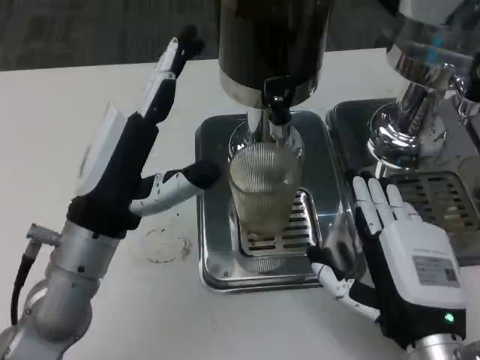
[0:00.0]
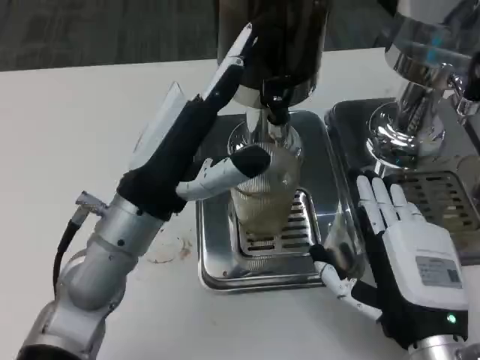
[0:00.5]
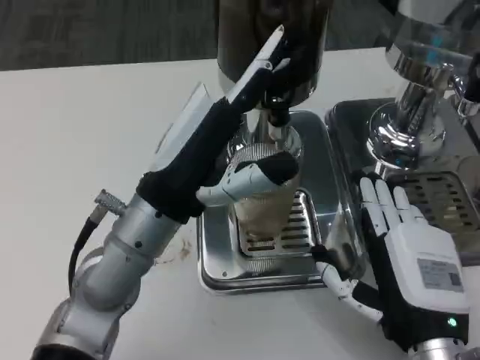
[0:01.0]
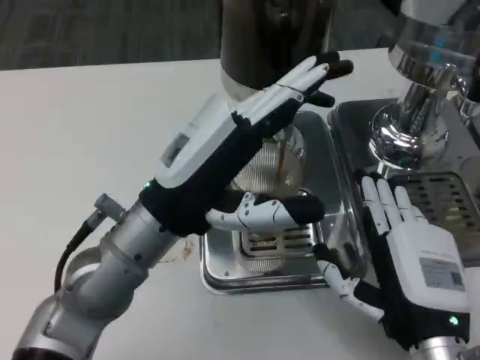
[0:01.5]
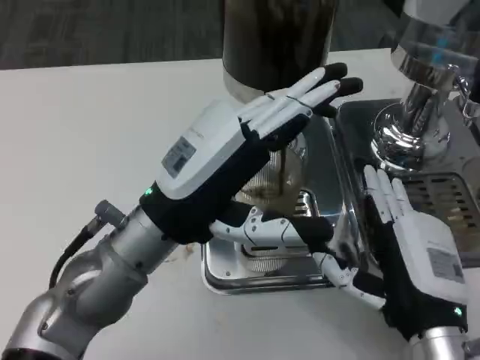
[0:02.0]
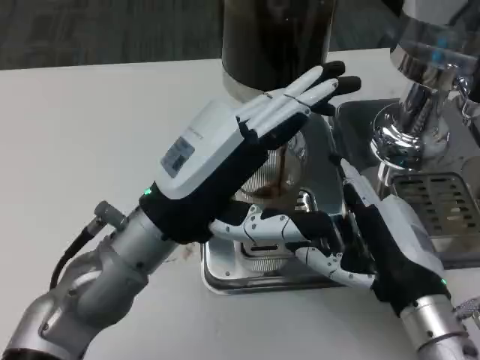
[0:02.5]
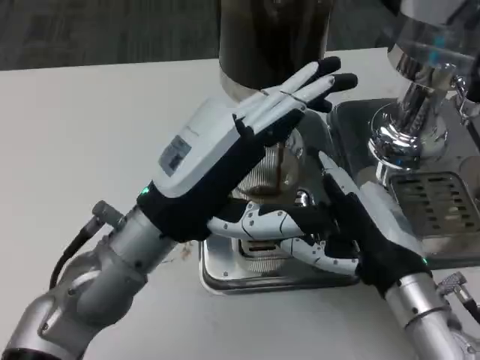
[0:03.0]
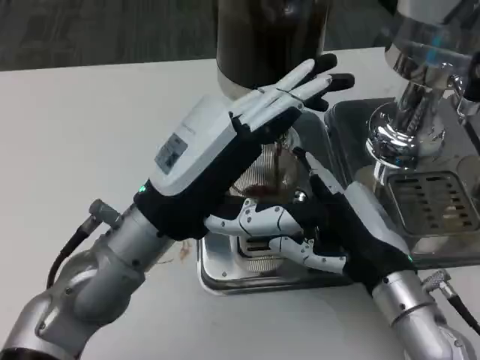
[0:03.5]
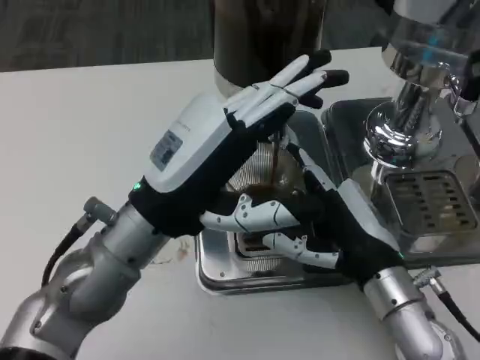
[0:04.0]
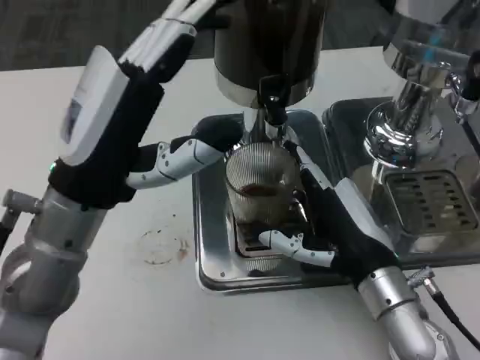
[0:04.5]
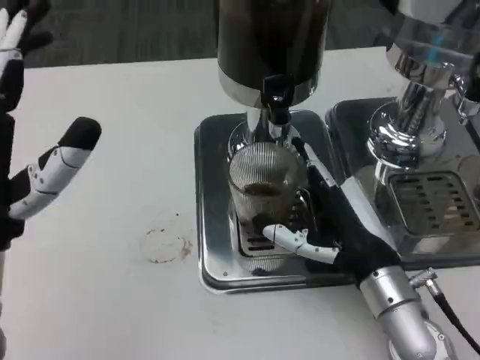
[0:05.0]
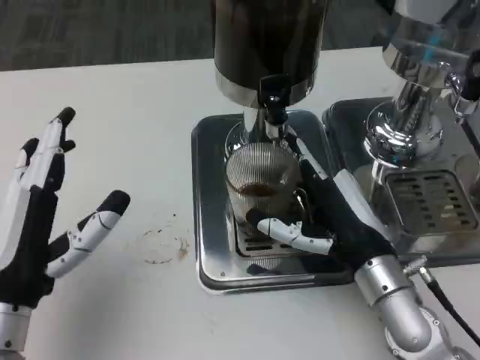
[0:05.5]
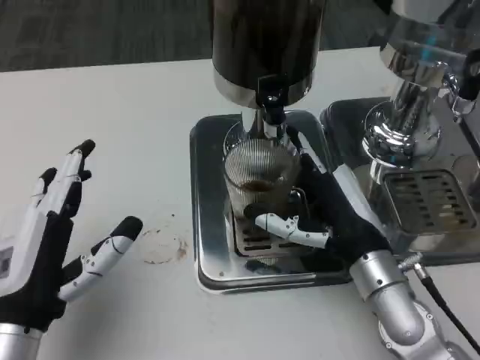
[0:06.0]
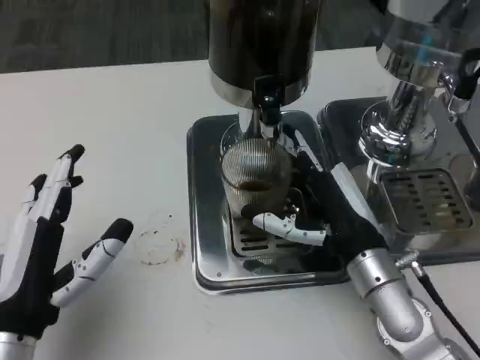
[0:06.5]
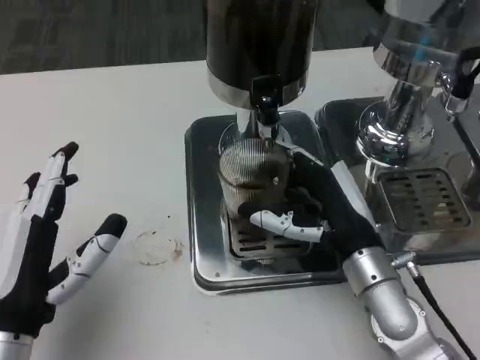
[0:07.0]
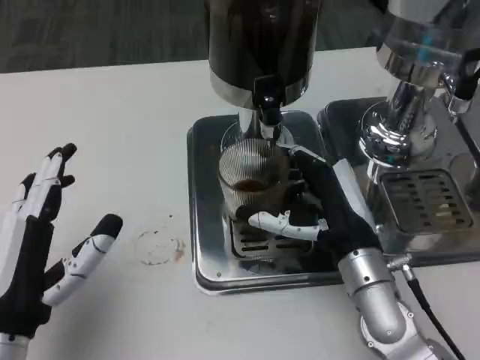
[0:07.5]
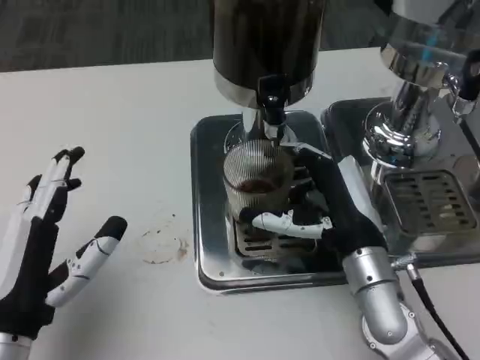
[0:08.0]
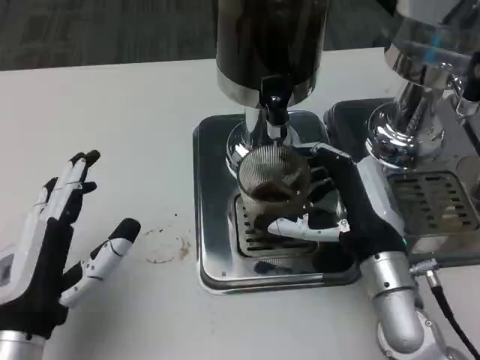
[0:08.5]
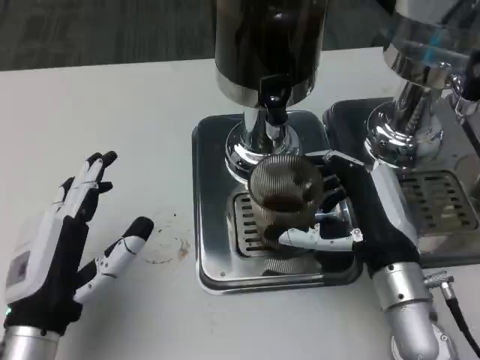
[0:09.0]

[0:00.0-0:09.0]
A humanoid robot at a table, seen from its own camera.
Task of the whole recording: Grasp the cup under the faucet to collect the drink, then remove the cup.
0:02.0 to 0:04.5: The right hand is displaced forward by some 5 cm.
0:04.5 to 0:07.0: The left hand goes some 15 cm downward, backward and to the left.

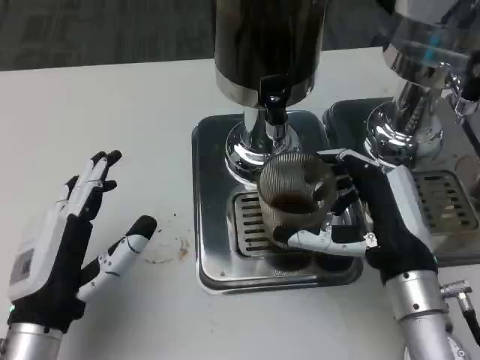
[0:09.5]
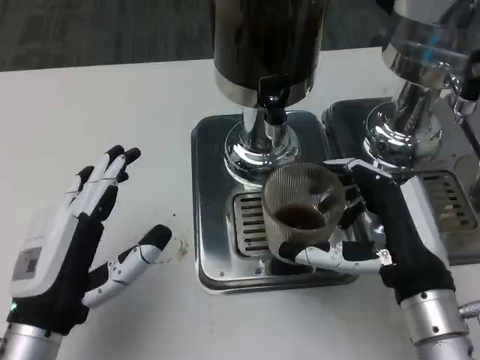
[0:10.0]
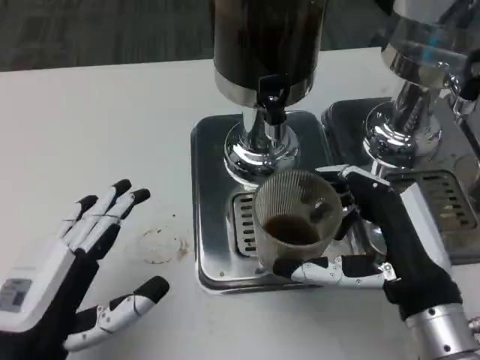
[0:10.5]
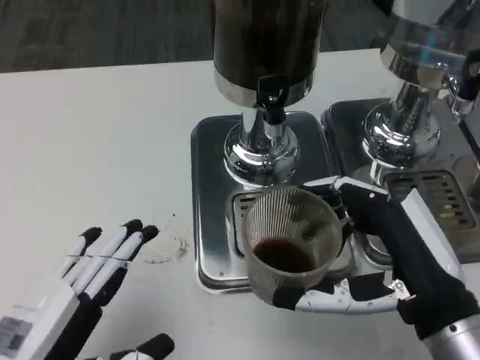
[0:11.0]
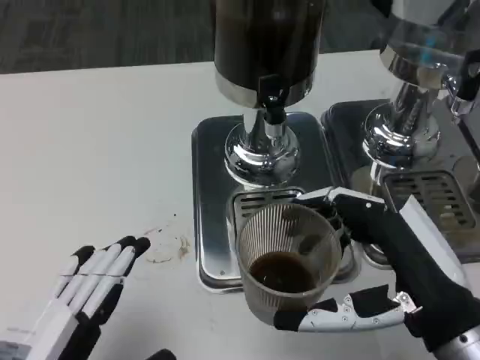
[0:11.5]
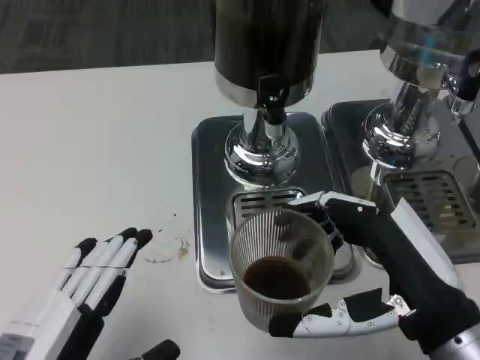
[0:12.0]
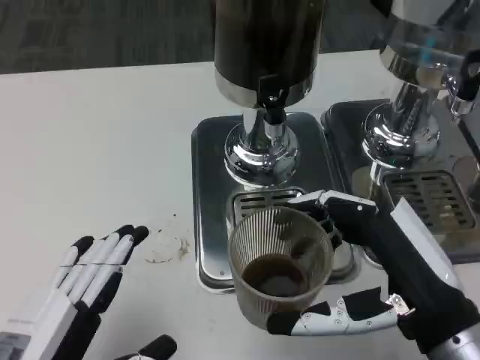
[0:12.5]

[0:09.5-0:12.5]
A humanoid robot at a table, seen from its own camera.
Task of the whole recording: Grasp the cup under the faucet to collect the drink, then remove the cup.
0:09.5 to 0:11.0: The two hands go roughly 5 cm backward.
0:11.0 to 0:12.5: The hands move only a little.

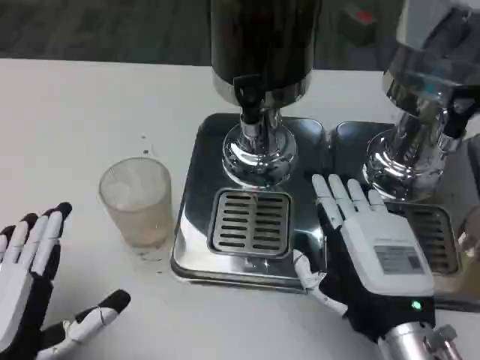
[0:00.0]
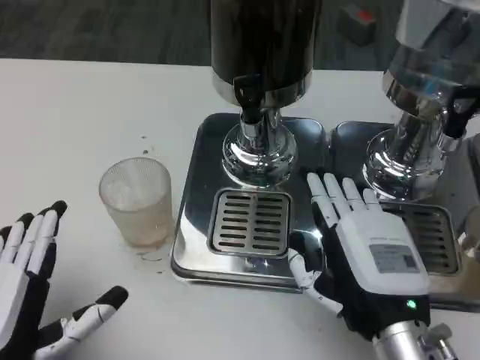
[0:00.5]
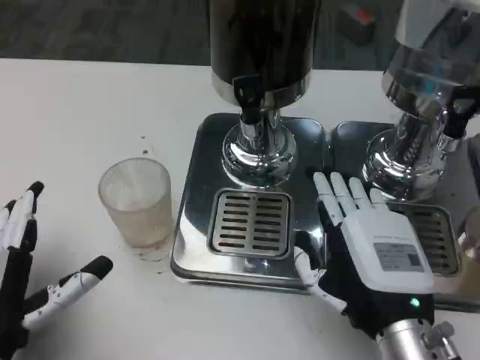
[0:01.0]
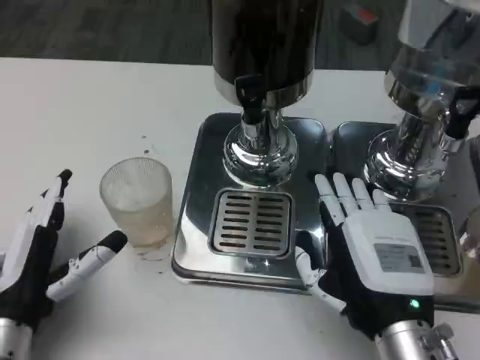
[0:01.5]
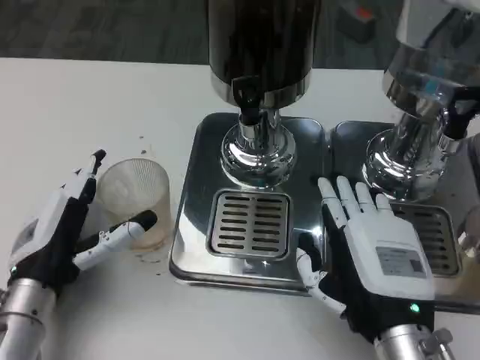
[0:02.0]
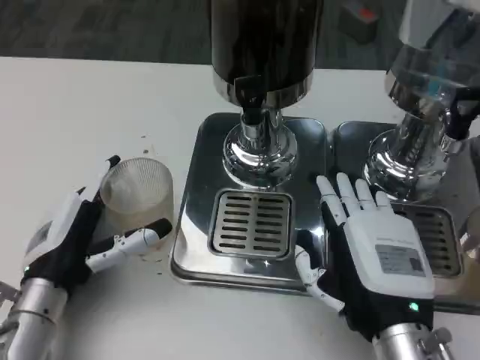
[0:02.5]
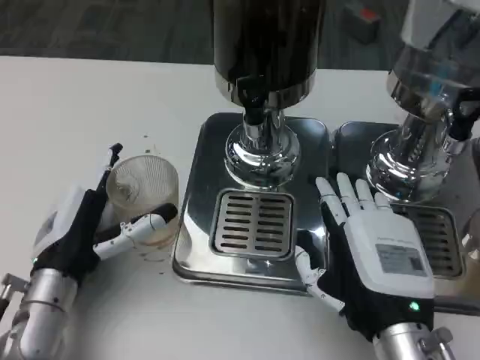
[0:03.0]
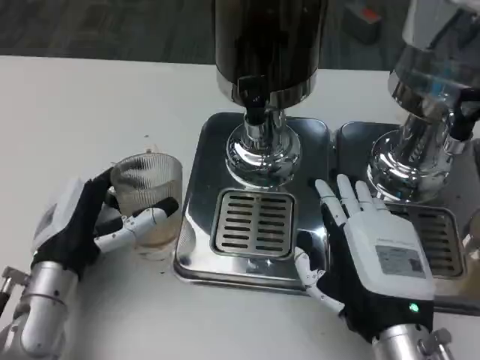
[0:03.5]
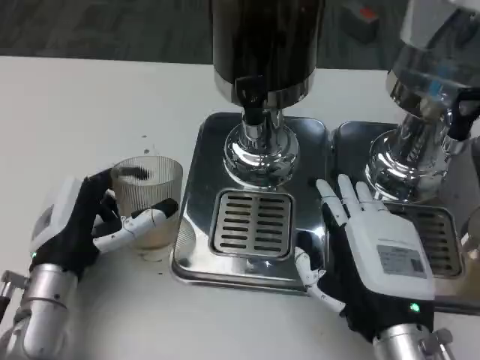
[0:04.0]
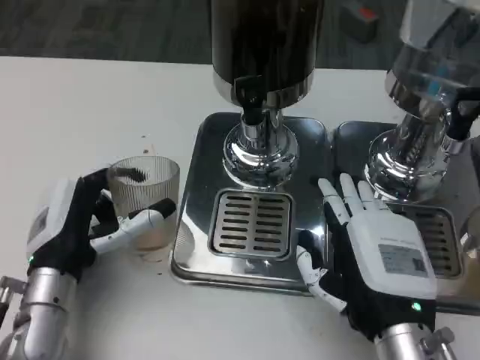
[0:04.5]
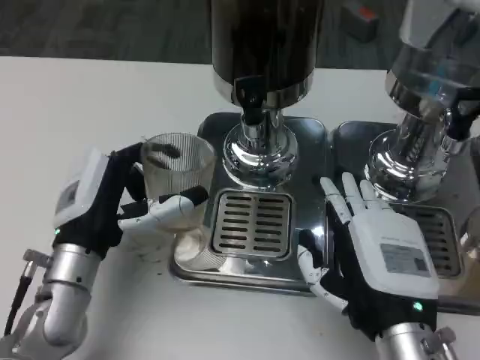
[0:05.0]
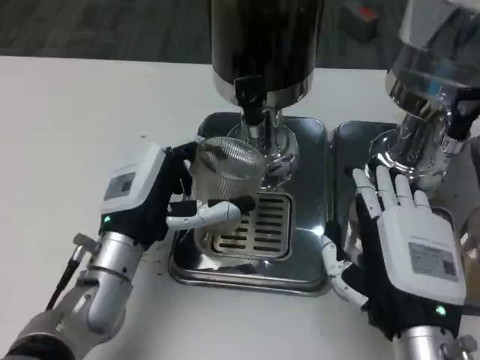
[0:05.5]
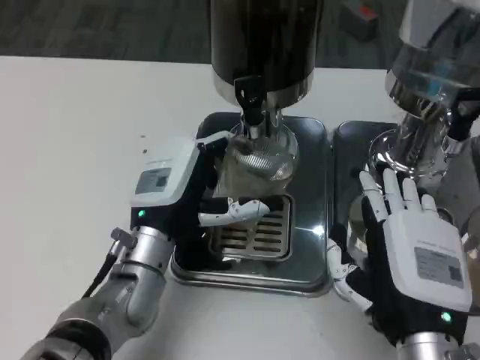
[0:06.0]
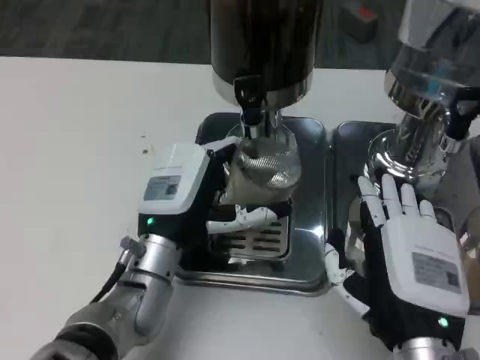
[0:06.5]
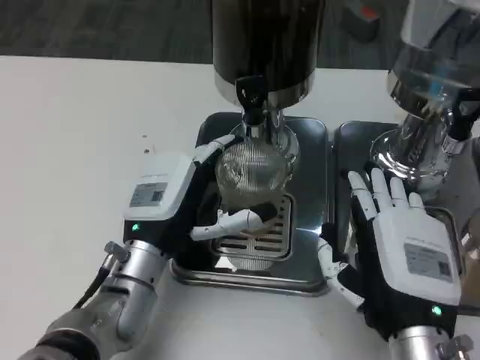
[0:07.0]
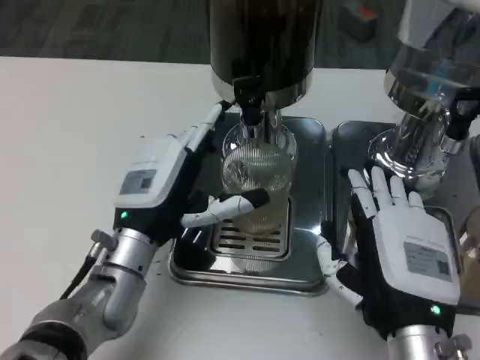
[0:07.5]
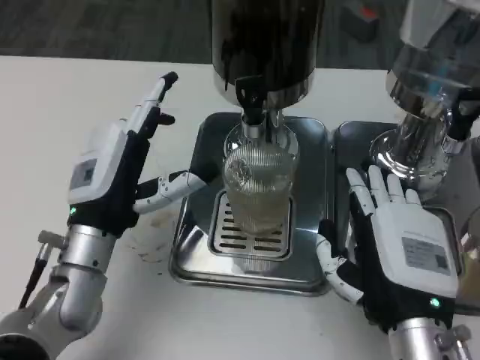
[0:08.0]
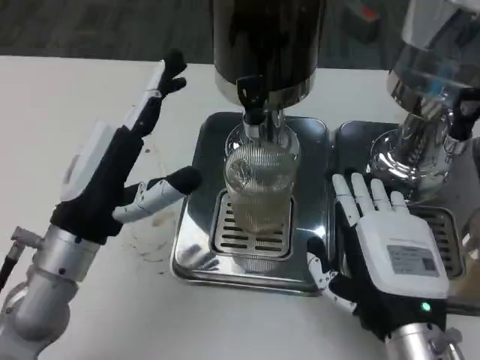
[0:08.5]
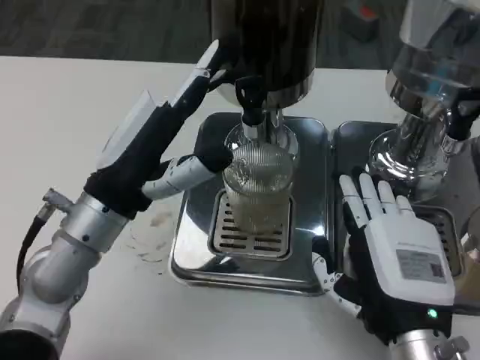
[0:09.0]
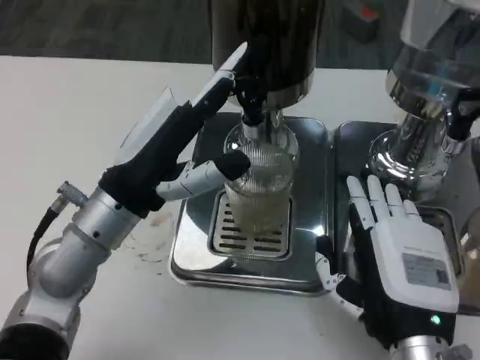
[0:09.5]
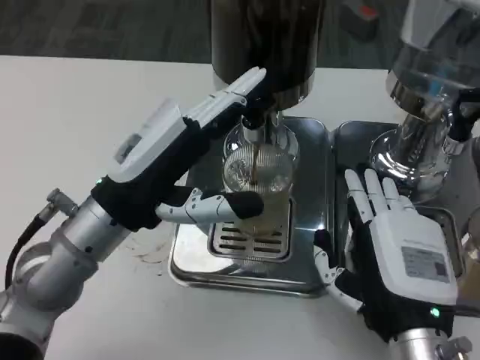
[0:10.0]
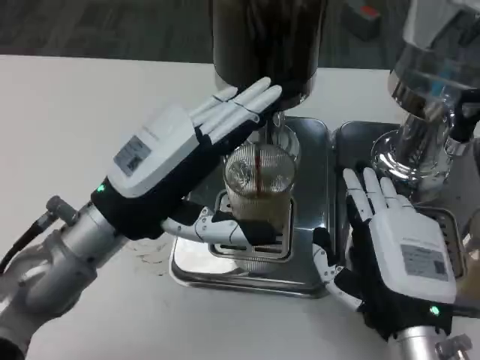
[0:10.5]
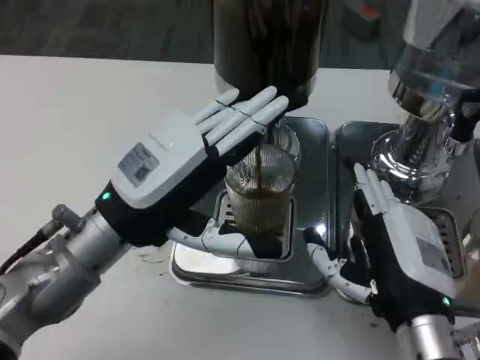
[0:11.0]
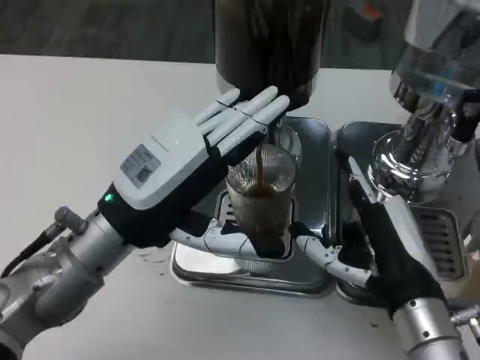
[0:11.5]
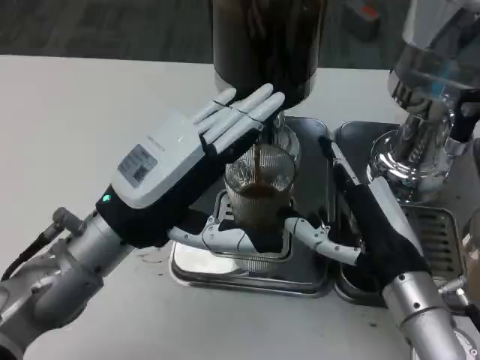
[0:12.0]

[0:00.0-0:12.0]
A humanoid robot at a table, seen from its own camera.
Task of the whole recording: Grasp the cup under the faucet to collect the drink, then remove the cup.
0:00.0 to 0:02.0: The left hand goes approximately 10 cm forward.
0:02.0 to 0:04.0: The hands stay close to where they were, moving slightly.
0:04.0 to 0:06.0: The left hand heads to the right, covering approximately 10 cm.
0:06.0 to 0:08.0: The left hand shifts roughly 5 cm to the left.
0:08.0 to 0:10.0: The left hand heads upward, covering roughly 5 cm.
0:10.0 to 0:12.0: The right hand moves forward, approximately 5 cm.

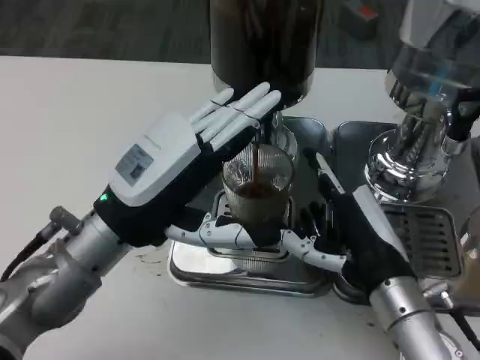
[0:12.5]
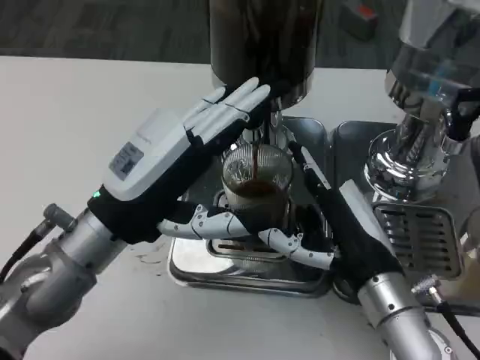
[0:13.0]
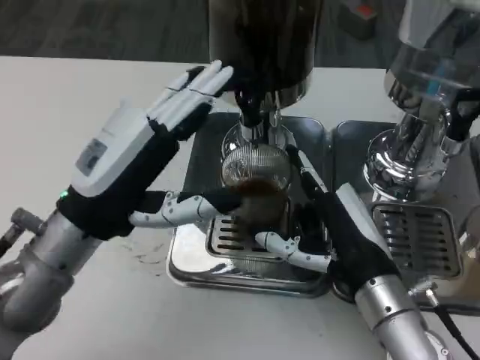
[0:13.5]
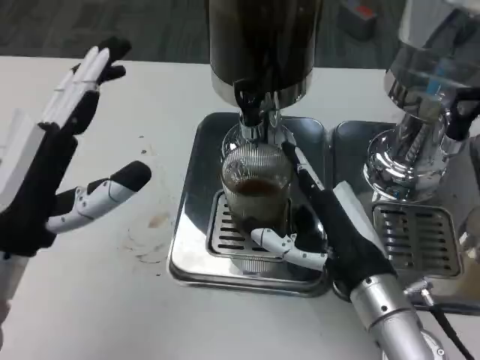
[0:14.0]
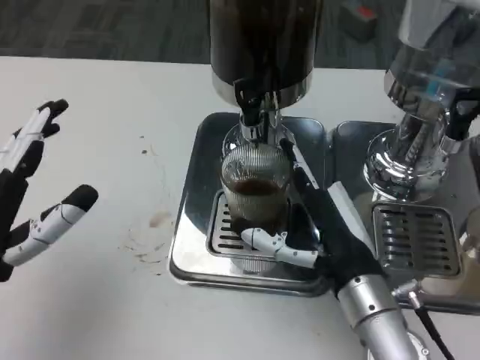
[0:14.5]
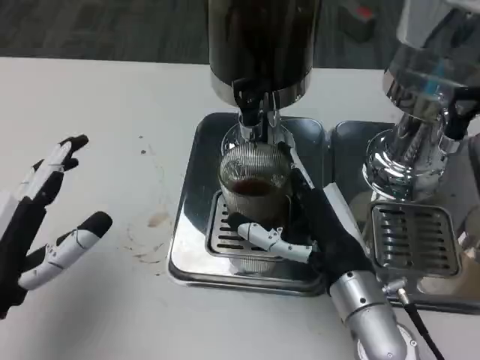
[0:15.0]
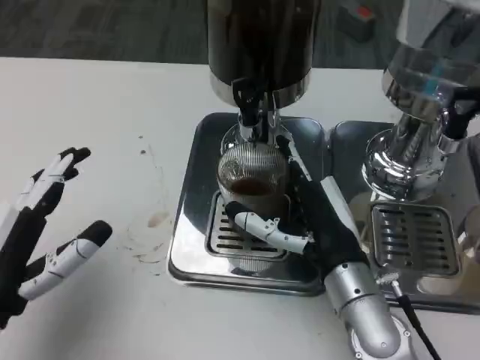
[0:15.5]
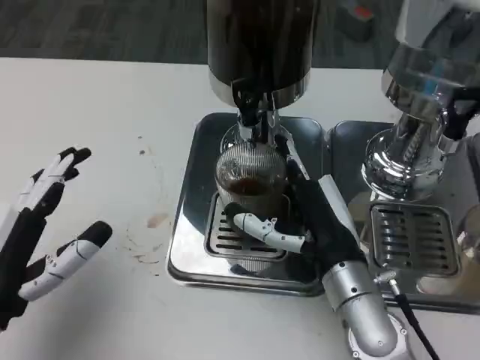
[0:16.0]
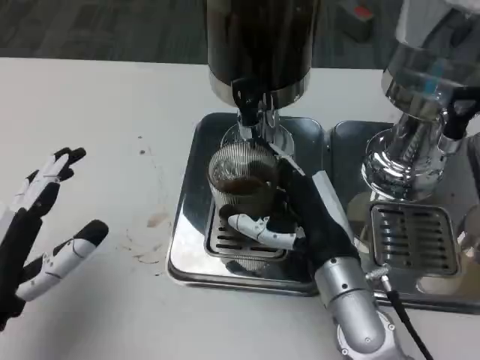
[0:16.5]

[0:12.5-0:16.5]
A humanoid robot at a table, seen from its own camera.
Task of the whole recording: Grasp the cup under the faucet to collect the drink, then remove the cup.
0:12.5 to 0:14.5: The left hand is displaced to the left and backward by roughly 10 cm.
